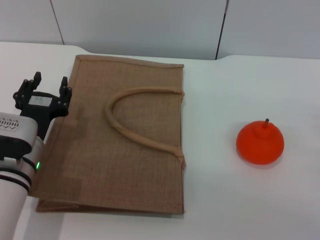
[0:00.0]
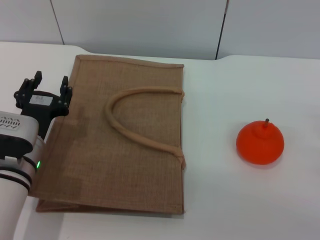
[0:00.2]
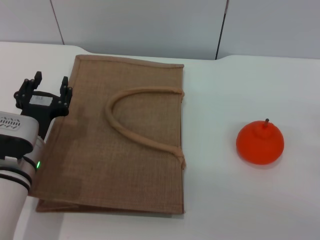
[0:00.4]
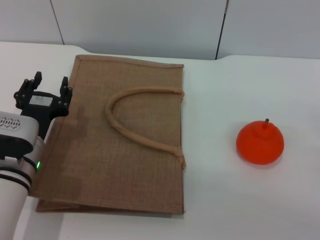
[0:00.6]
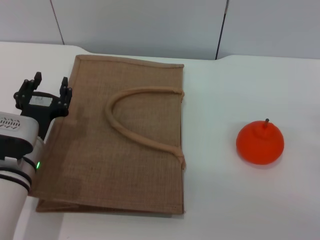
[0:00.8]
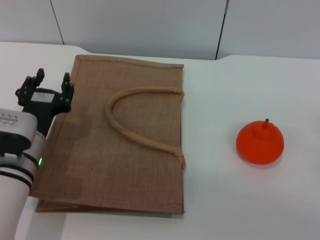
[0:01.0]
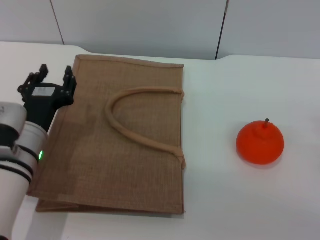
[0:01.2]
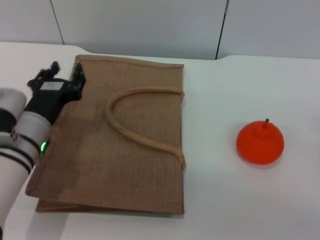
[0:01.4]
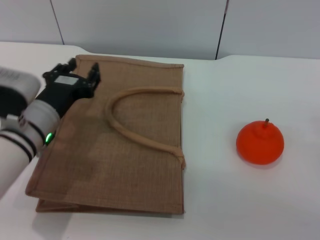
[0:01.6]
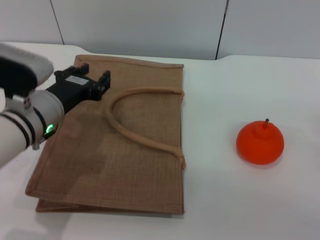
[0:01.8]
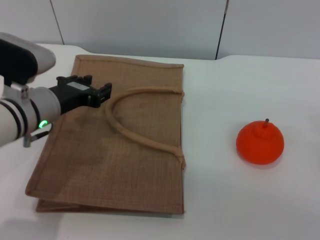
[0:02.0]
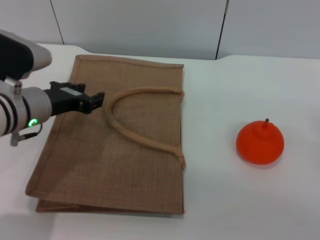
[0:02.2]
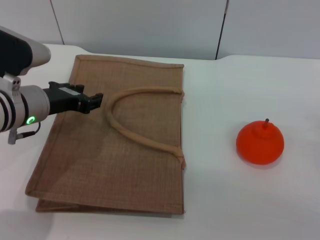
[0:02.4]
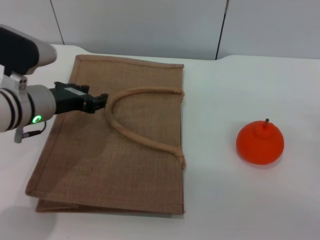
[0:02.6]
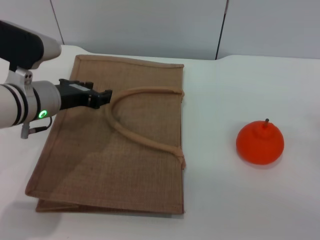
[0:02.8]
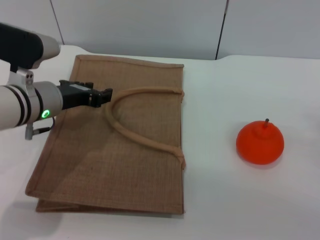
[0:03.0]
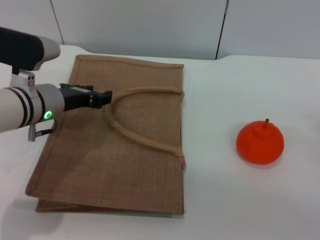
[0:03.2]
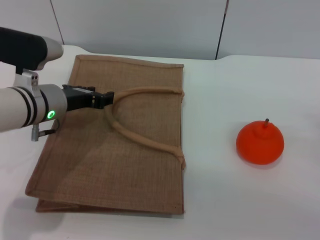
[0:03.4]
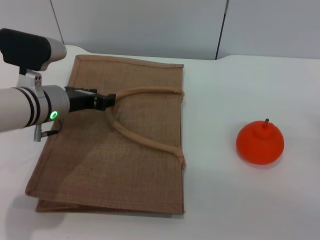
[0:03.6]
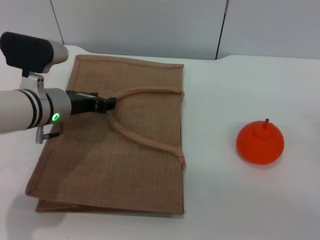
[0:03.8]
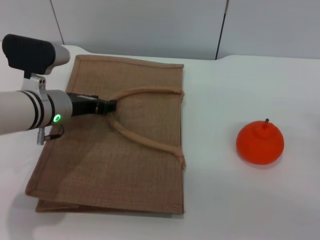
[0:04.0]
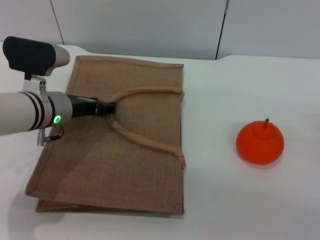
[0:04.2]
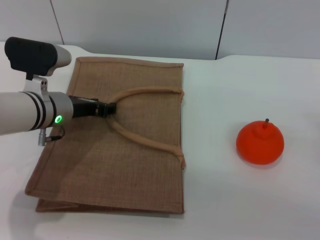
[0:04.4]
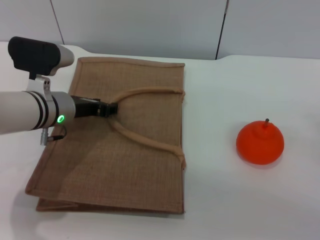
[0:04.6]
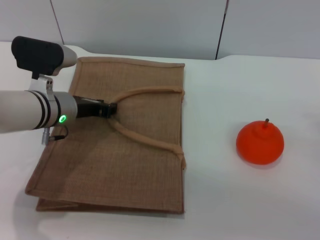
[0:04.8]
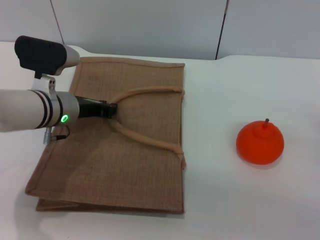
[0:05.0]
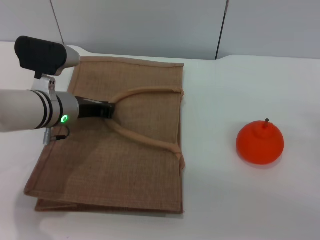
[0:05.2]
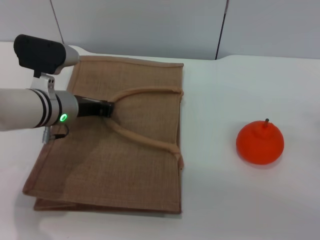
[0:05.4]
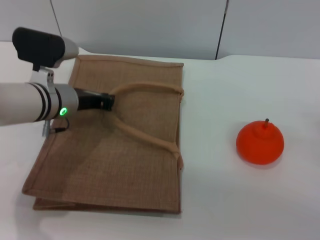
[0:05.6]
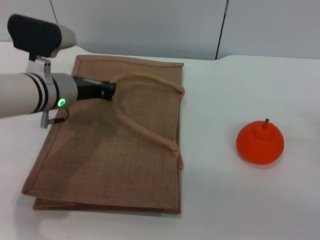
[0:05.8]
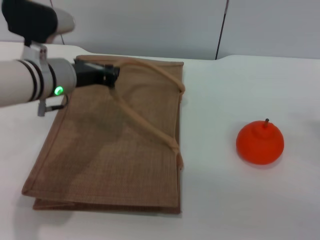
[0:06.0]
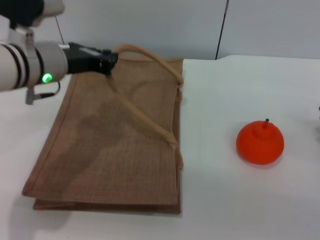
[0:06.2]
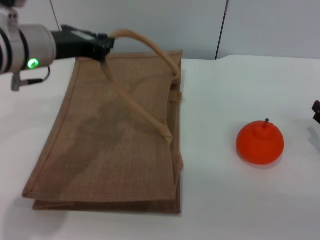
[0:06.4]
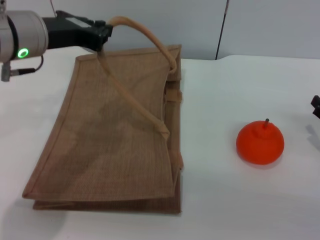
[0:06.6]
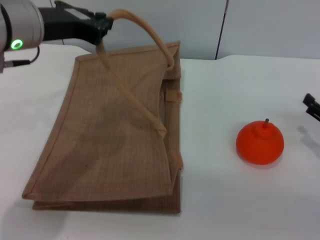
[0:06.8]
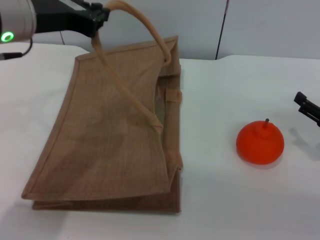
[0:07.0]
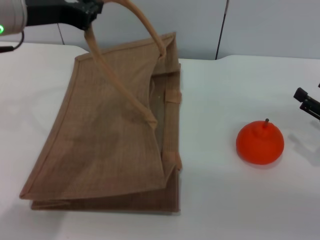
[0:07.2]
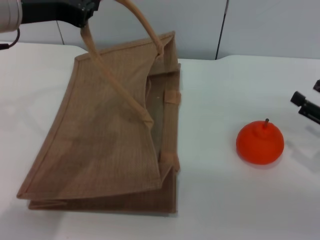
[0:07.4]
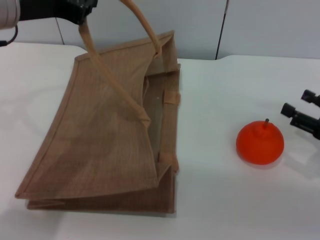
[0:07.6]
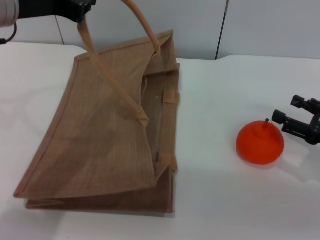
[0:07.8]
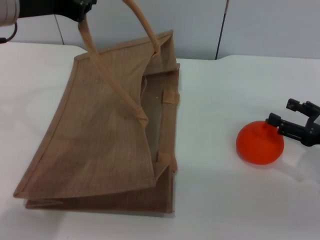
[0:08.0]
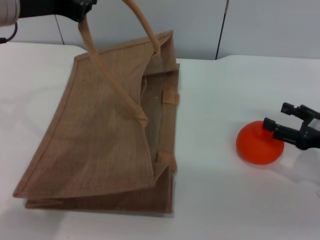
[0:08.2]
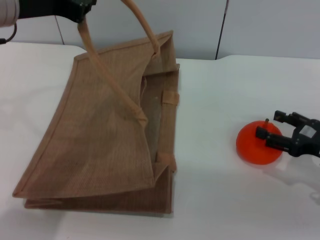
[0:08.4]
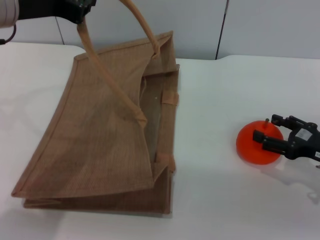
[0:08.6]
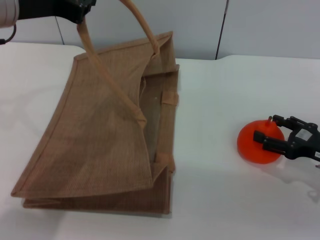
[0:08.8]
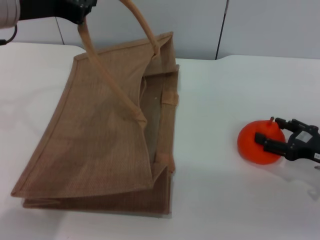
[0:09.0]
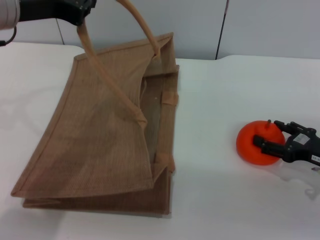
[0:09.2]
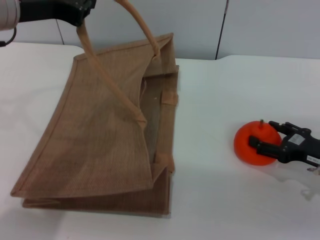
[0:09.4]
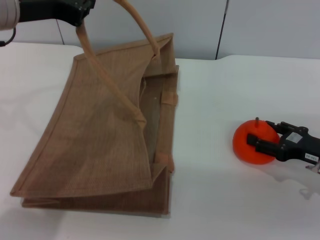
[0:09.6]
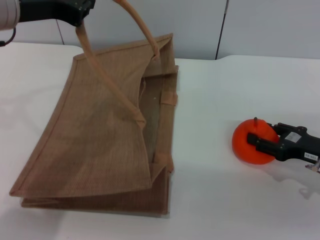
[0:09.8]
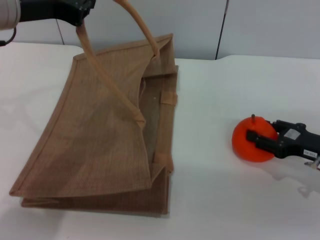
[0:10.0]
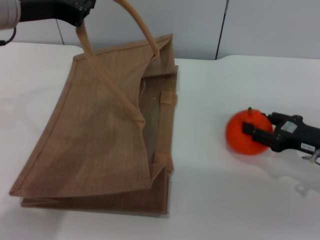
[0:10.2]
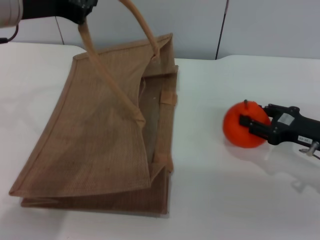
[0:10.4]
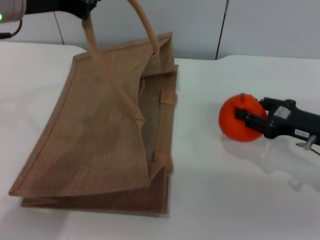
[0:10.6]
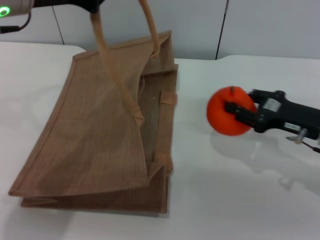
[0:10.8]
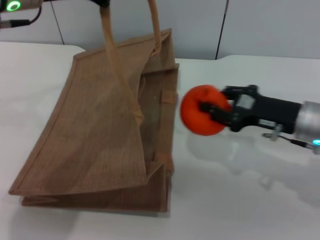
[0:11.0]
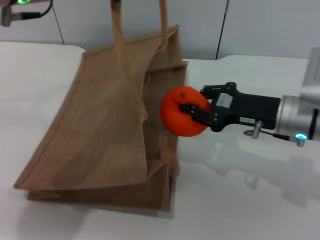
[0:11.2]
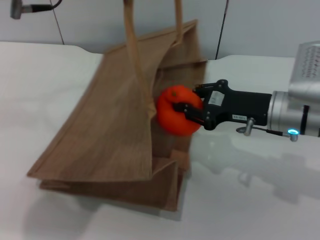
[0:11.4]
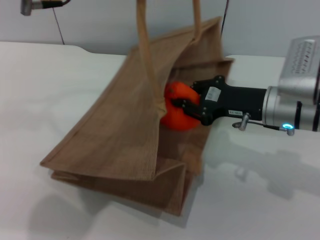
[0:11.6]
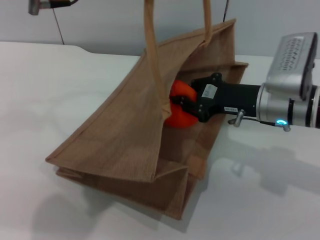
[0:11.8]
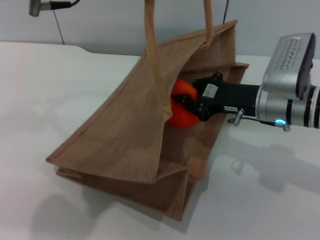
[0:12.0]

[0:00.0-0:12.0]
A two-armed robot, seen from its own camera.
Task of the whole recording: pick up the orange from the table and place it in the brown handbag.
Step, 0:00.0 to 0:06.2: Lift the woven bag with the left gripper to open it.
Step, 0:06.4 to 0:10.6: Pick up the orange with the right gripper.
0:00.0 to 0:01.6: There are only small adjustments of the grippers.
0:01.6 to 0:03.0: The left gripper changes place by roughly 5 cm.
0:03.0 to 0:04.4: The grippers make only small movements.
0:04.4 to 0:06.0: The left gripper shifts about 5 cm upward, and closes up.
0:06.0 to 0:07.6: The right gripper changes place by roughly 5 cm. Meanwhile the left gripper is displaced upward by some 15 cm.
0:07.6 to 0:09.0: The grippers stay close to where they were, moving slightly.
0:09.0 to 0:10.4: The right gripper closes.
0:10.4 to 0:12.0: The right gripper shifts about 10 cm to the left, and closes its fingers. Meanwhile the left gripper goes roughly 5 cm to the right.

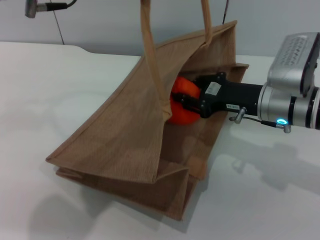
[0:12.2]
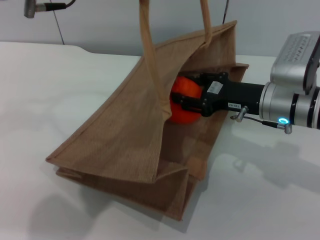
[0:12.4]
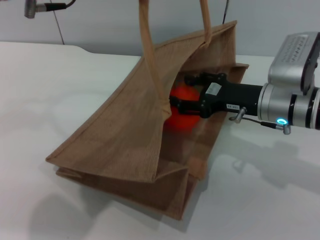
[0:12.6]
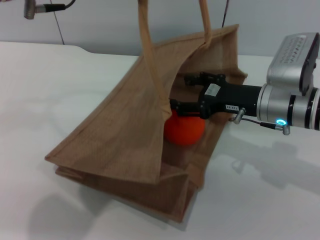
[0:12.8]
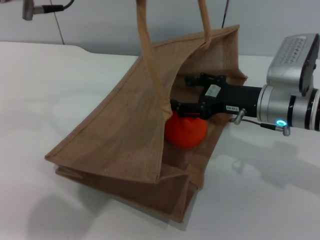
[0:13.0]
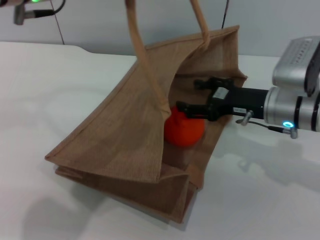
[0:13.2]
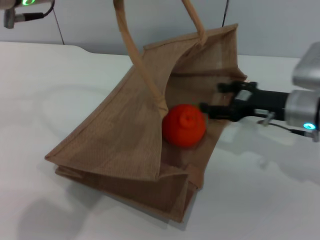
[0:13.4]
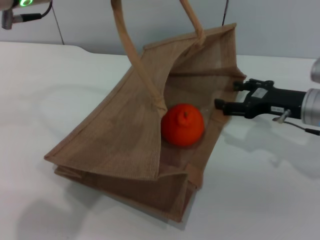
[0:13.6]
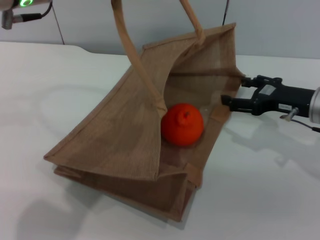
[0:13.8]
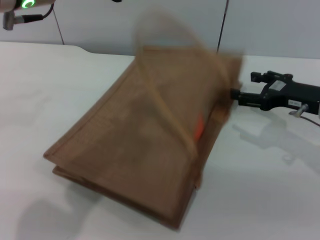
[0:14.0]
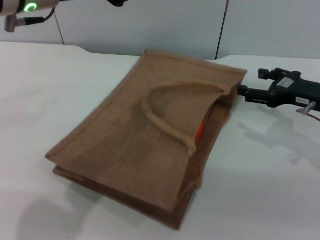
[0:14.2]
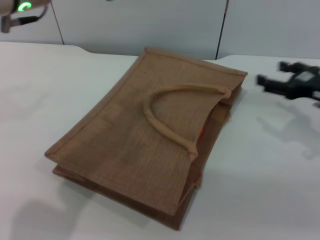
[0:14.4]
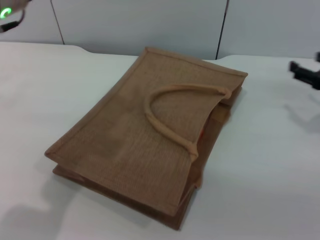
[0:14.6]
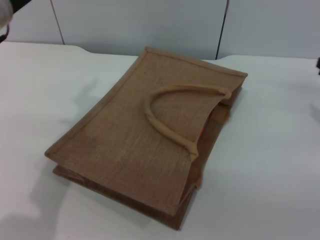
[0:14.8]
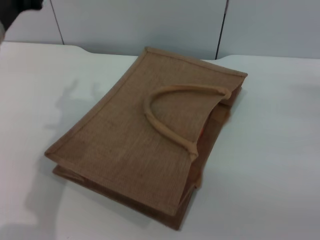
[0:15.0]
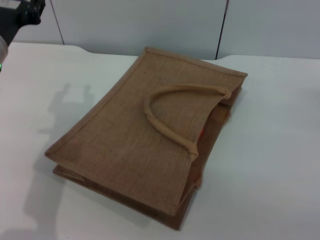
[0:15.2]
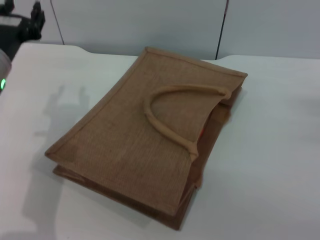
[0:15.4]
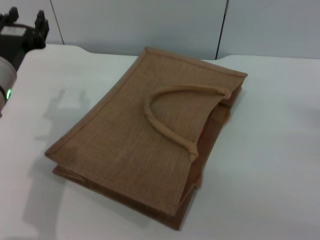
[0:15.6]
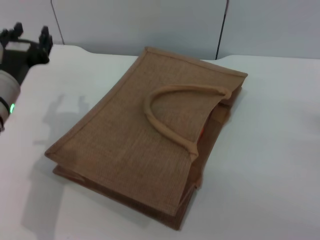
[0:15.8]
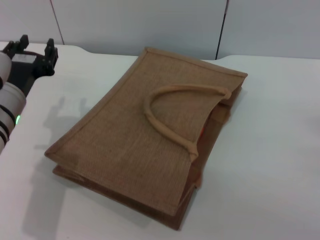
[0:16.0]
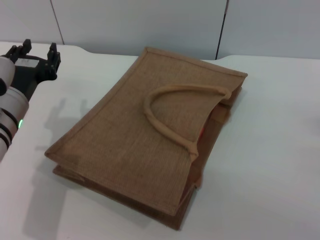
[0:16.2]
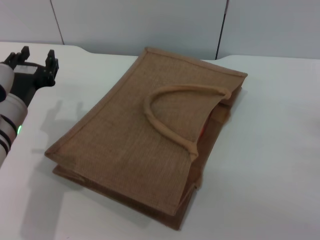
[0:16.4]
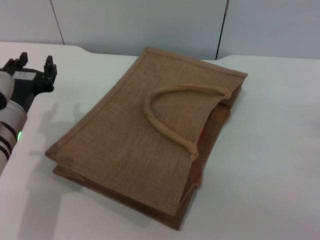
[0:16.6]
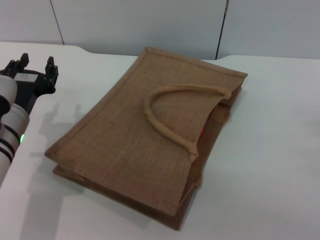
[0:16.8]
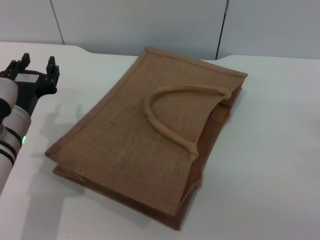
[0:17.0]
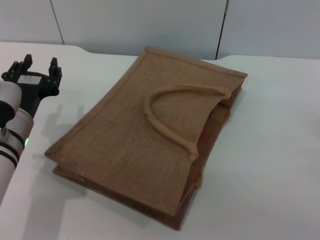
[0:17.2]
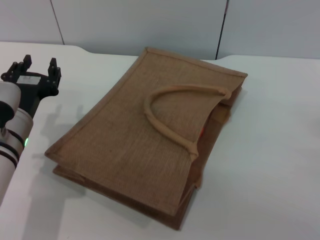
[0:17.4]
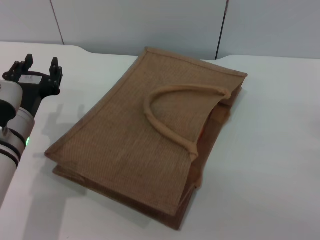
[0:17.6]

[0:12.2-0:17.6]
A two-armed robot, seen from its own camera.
Task of the whole recording: pick up the orange from the table and place it in the brown handbag.
Step, 0:12.2 to 0:13.6: Place the orange into the woven bag with the right gripper.
Step, 0:13.8 to 0:16.0: Lower the woven bag with the left gripper to close it.
0:12.2 to 0:13.6: The right gripper travels to the right by approximately 5 cm, and opens up.
0:13.6 to 0:15.0: The right gripper travels to the right by about 10 cm; the left gripper is displaced downward and to the left by about 10 cm, and opens its fingers.
0:15.0 to 0:16.2: The left gripper goes some 10 cm downward.
0:16.2 to 0:17.6: The grippers move only a little.
